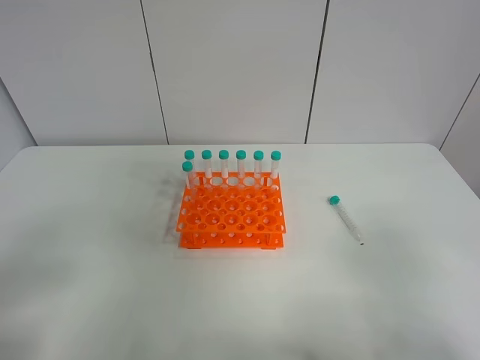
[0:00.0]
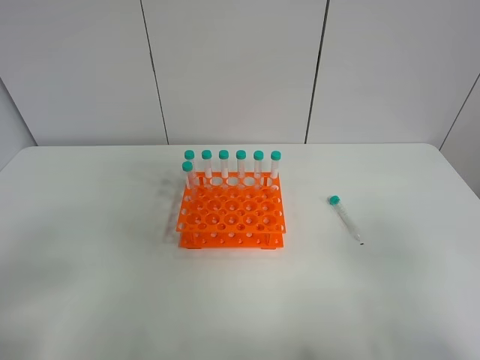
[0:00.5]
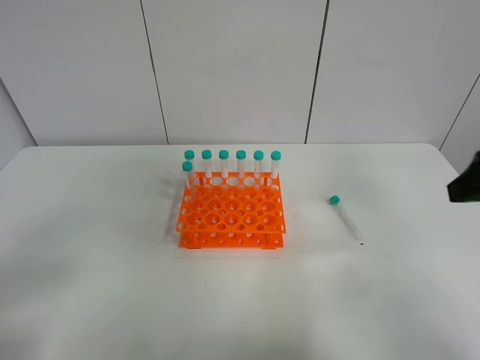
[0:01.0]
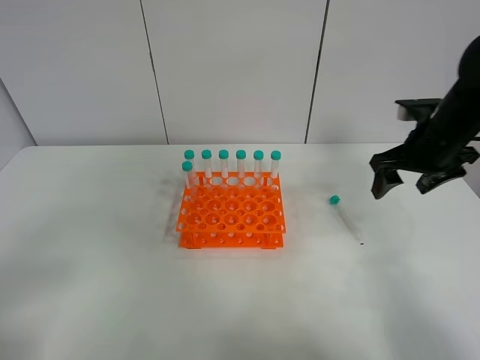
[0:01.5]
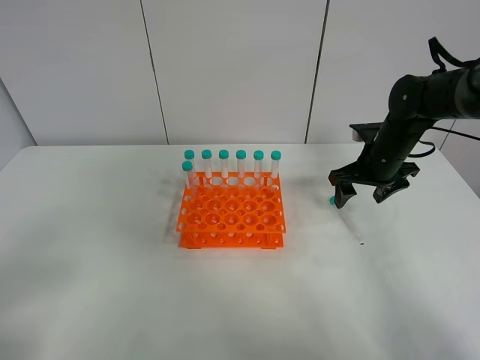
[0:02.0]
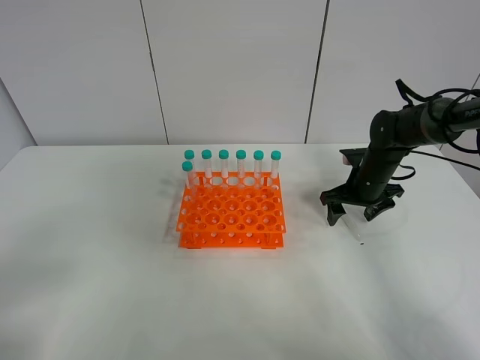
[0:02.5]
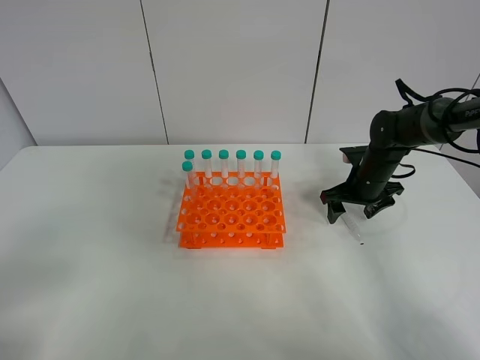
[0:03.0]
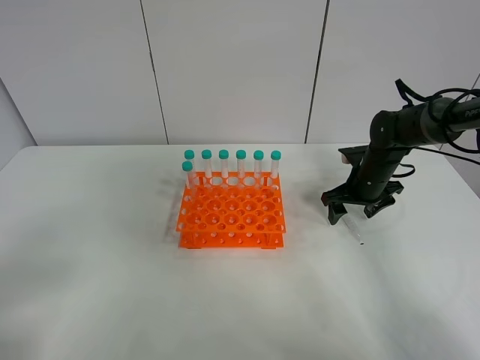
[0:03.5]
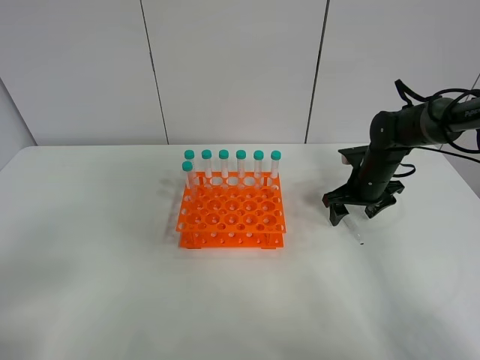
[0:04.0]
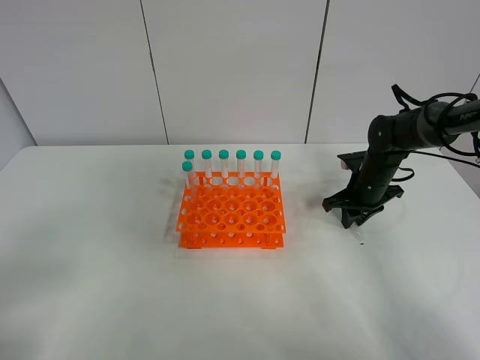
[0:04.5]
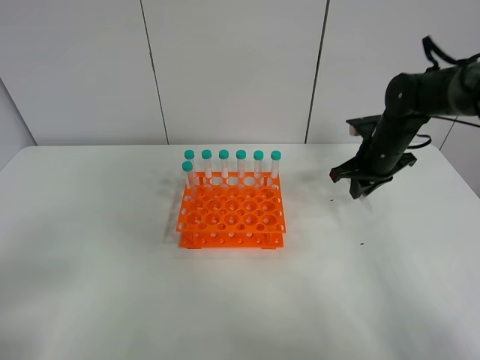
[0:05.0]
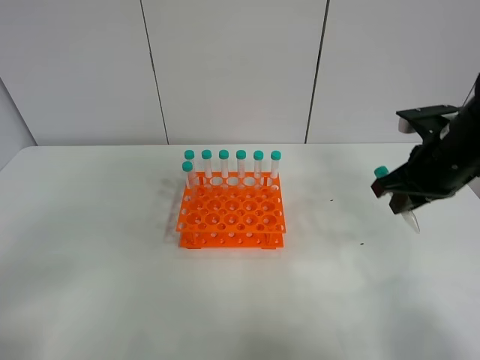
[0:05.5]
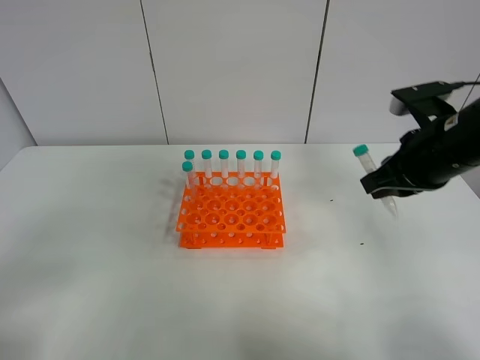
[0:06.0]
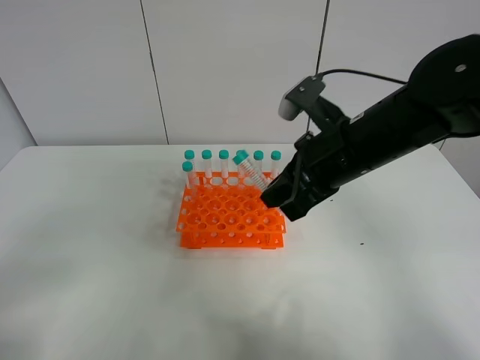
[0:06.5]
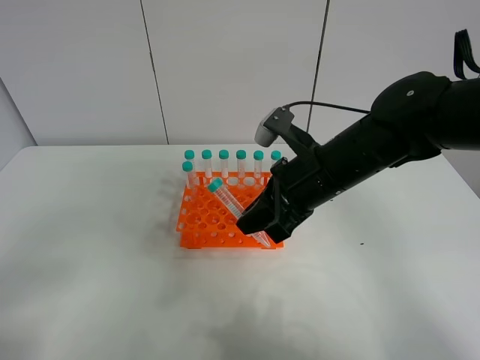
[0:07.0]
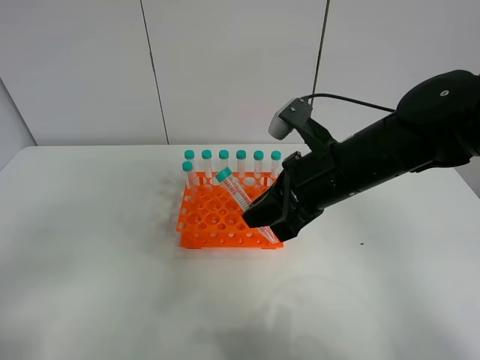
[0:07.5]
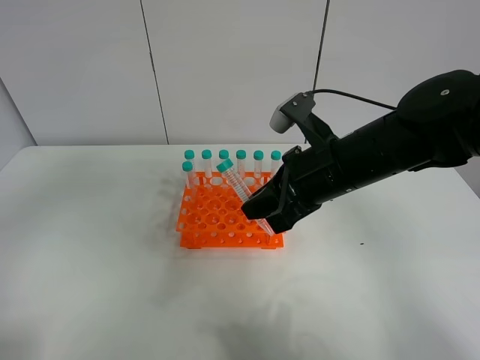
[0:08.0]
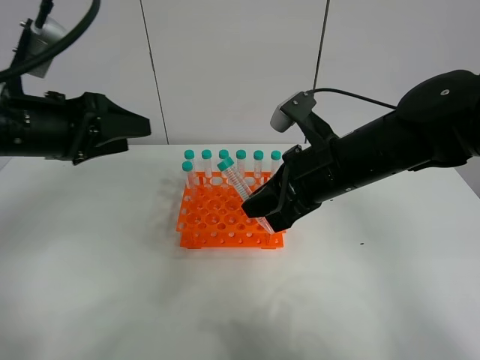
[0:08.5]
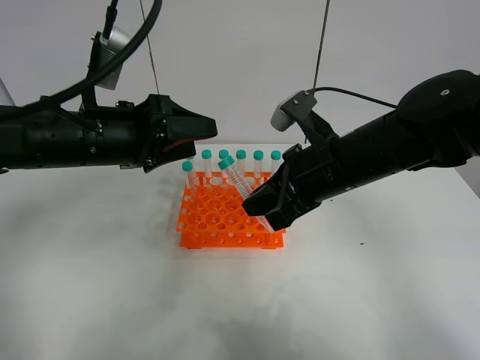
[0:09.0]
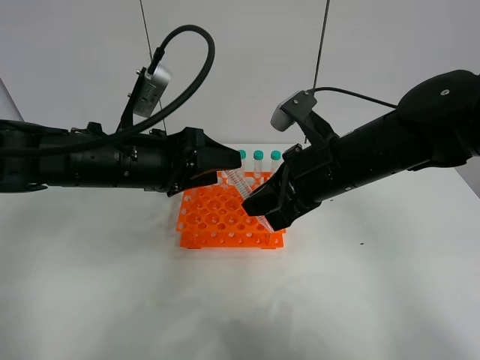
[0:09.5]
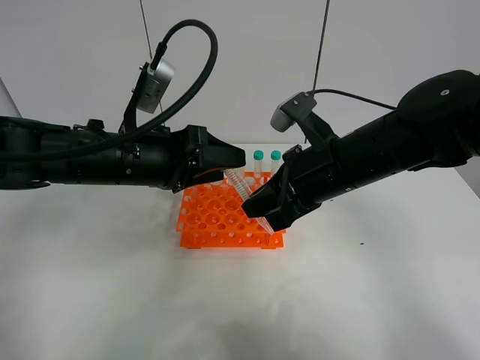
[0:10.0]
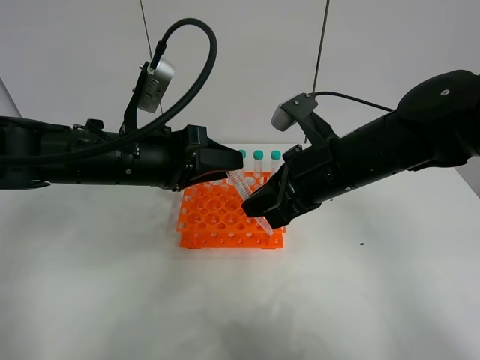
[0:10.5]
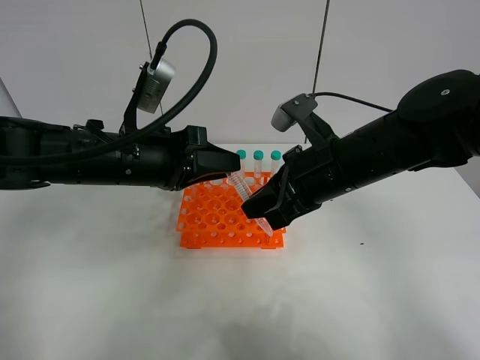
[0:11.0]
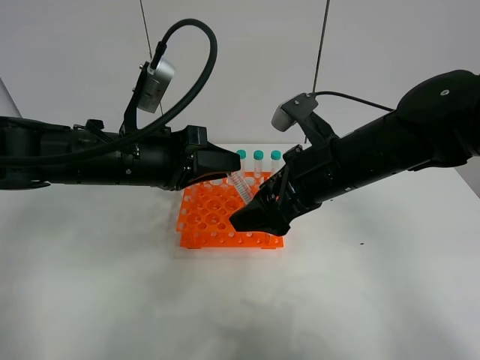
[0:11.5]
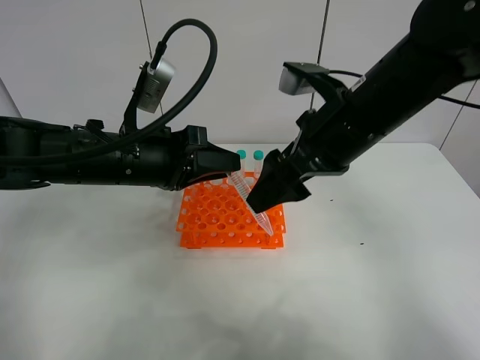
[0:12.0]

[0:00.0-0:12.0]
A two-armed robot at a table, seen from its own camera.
Task of the whole recording: Put the test tube on the table back onto the test tube rack.
Step, 0:00.0 to 0:04.5: Pick up the test tube with the right gripper.
Step, 0:05.0 to 0:11.5: Move the test tube from the right gripper to the left gripper.
0:00.0 to 0:02.0: The right gripper travels forward by approximately 40 cm.
0:02.0 to 0:04.0: The right gripper heads downward, covering approximately 5 cm.
0:04.0 to 0:06.0: The right gripper heads upward and backward, covering some 20 cm, and closes.
0:06.0 to 0:08.0: The right gripper moves to the left, approximately 10 cm, while the left gripper moves forward and upward, approximately 15 cm.
0:08.0 to 0:10.0: The left gripper shifts some 25 cm to the right, forward and downward.
0:10.0 to 0:12.0: The left gripper closes. Meanwhile the right gripper moves upward, roughly 5 cm, and opens up.

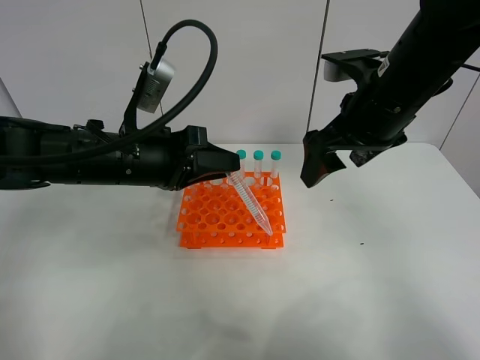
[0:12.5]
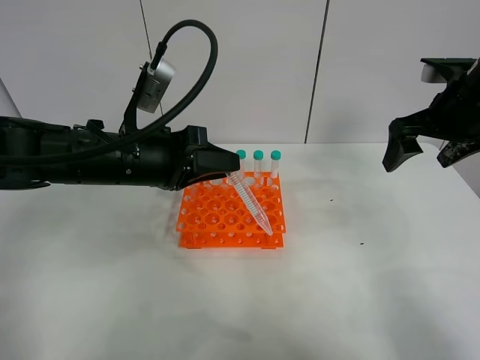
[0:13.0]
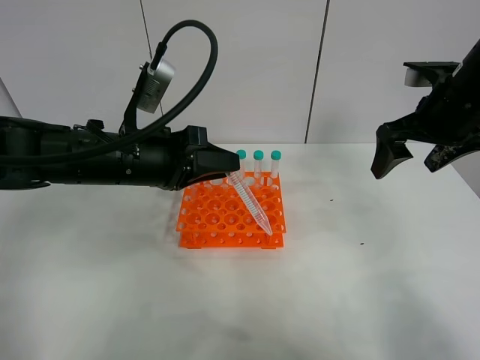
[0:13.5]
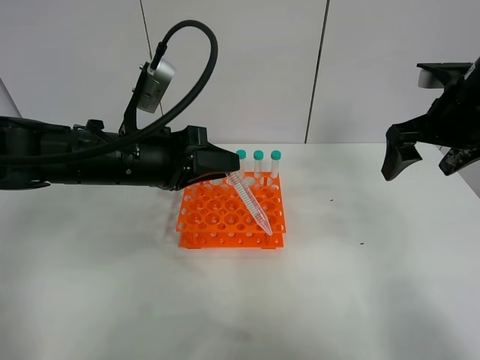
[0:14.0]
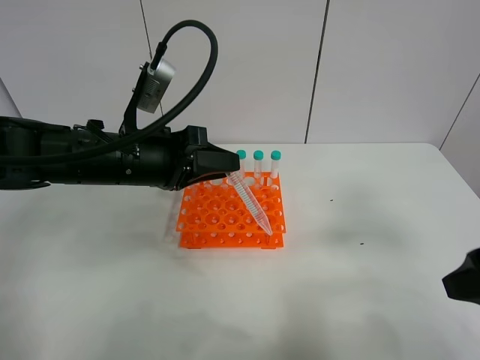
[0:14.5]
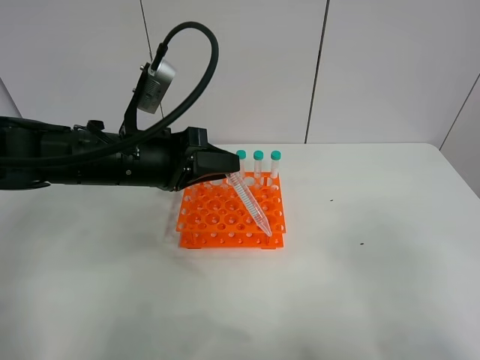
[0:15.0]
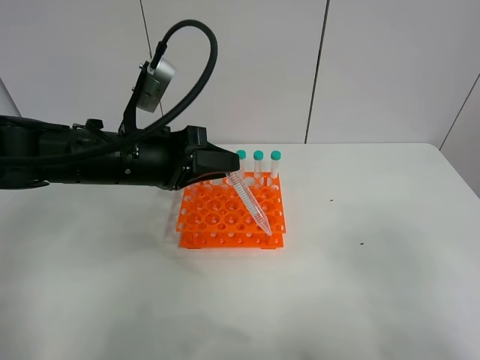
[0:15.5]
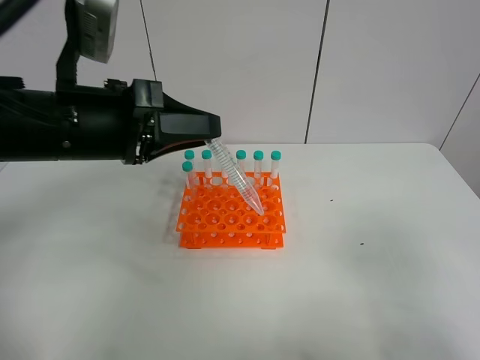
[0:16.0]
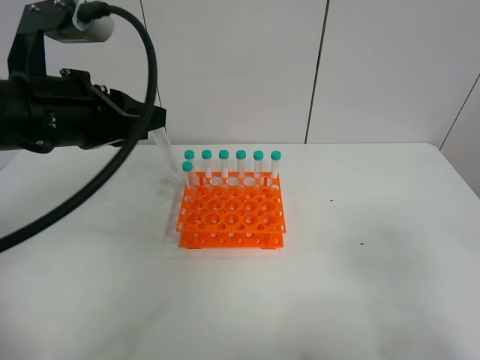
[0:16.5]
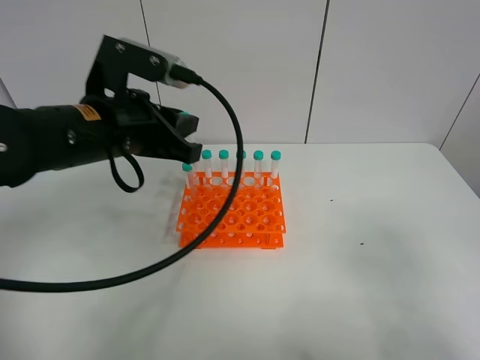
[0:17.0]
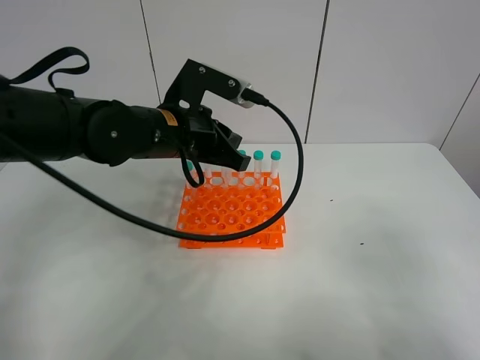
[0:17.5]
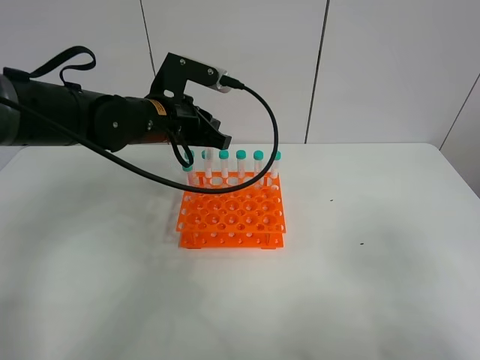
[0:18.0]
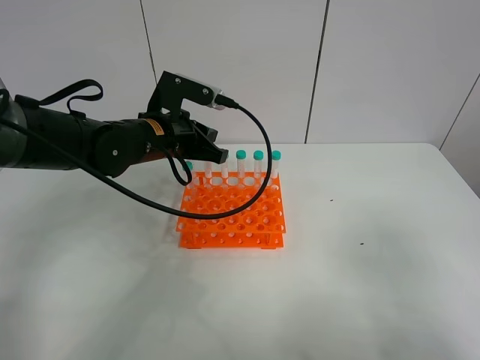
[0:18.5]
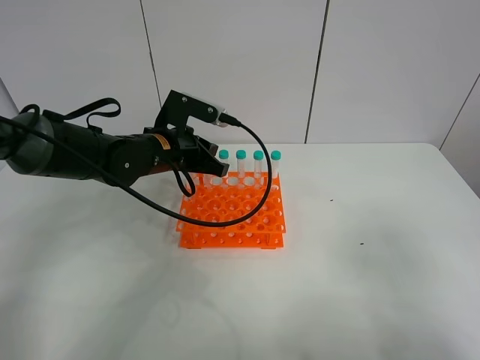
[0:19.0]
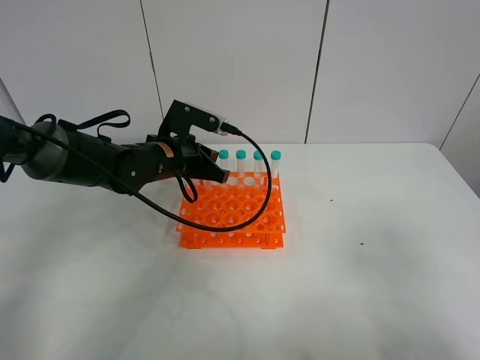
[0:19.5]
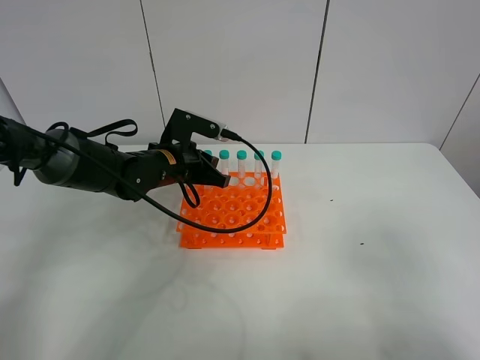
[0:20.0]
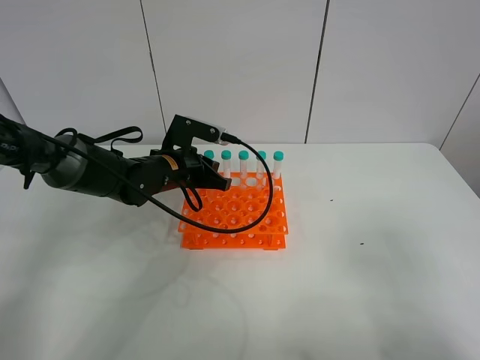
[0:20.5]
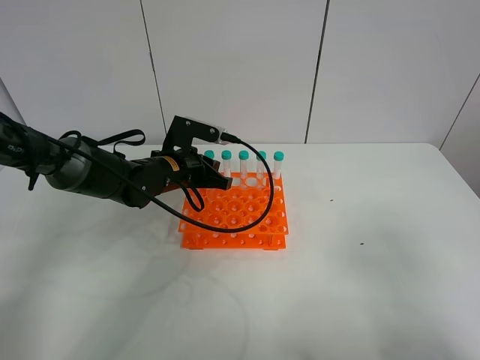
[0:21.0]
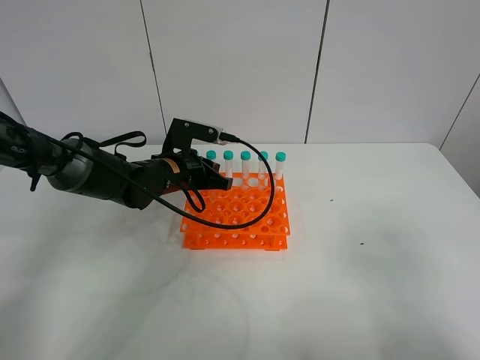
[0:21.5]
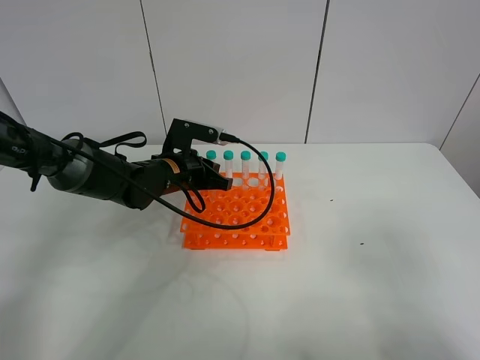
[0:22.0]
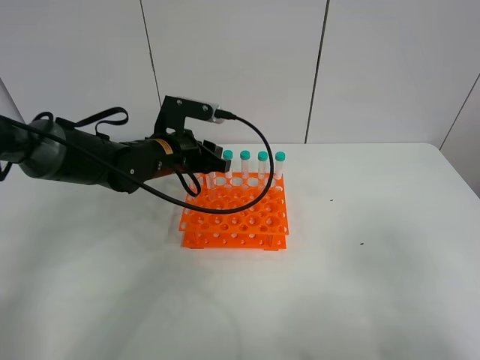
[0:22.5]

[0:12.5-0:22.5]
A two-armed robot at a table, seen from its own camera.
Task of the whole recording: Put the test tube on the table back onto the test tube rack.
Step, 0:12.5 to 0:22.0: Place the test tube on the test tube rack with the left gripper.
0:12.5 to 0:14.5: The right gripper moves backward and to the right, about 25 cm.
0:14.5 to 0:16.5: The right gripper goes some 10 cm backward. Meanwhile the left gripper is displaced upward and to the left by approximately 10 cm.
0:16.5 to 0:18.5: The left gripper travels forward, downward and to the right by some 15 cm.
0:18.5 to 0:20.5: The left gripper heads downward, covering roughly 10 cm.
0:20.5 to 0:22.5: The left gripper opens.

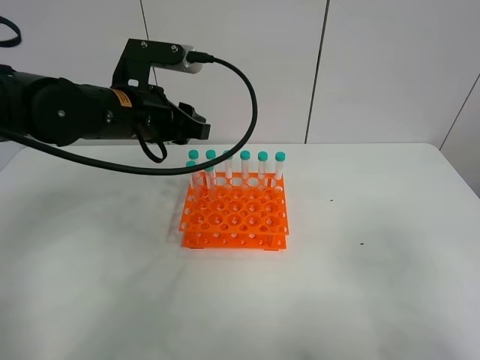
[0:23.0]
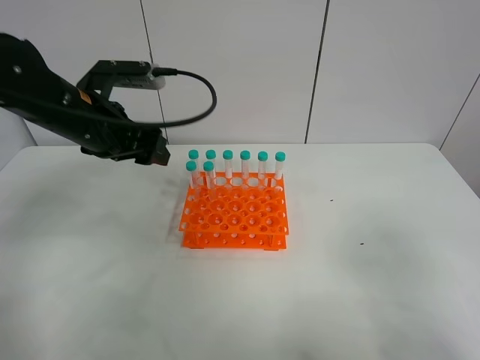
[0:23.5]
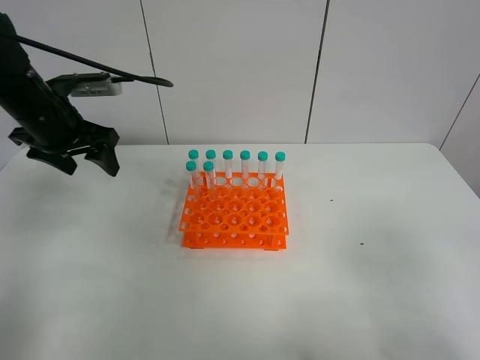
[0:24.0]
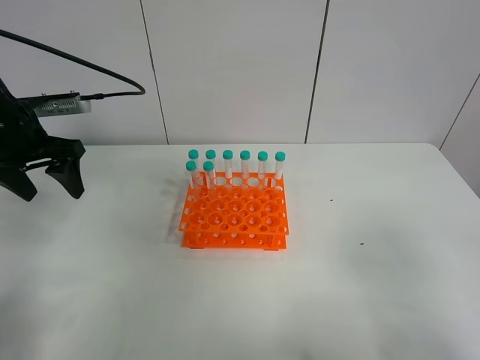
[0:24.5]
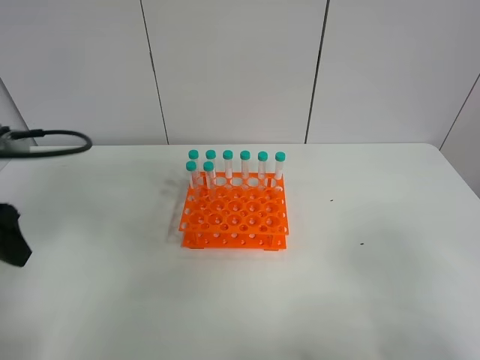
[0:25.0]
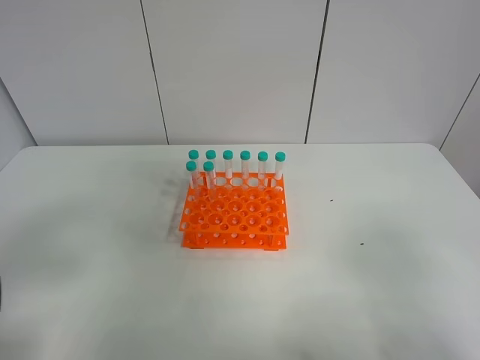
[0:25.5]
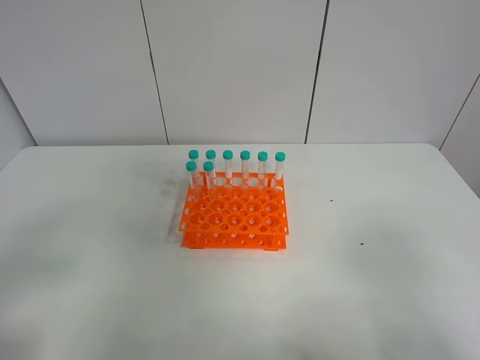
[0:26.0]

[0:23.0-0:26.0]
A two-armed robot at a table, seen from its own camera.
Task of the whole recording: Put the test tube on the table back onto the test tube rack.
0:23.0 to 0:24.5: The left gripper is displaced to the left by about 15 cm, and opens.
0:24.5 to 0:26.0: The left gripper shifts roughly 30 cm backward.
